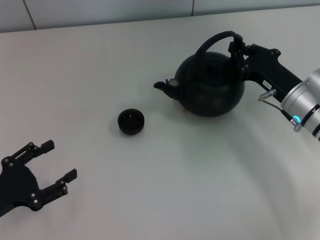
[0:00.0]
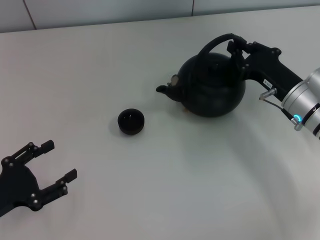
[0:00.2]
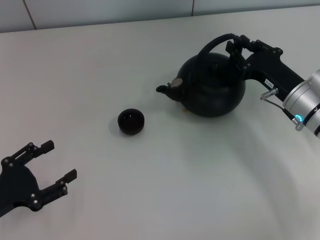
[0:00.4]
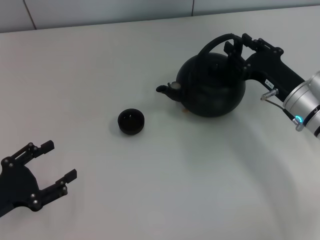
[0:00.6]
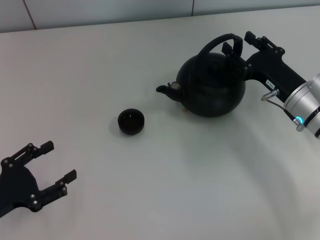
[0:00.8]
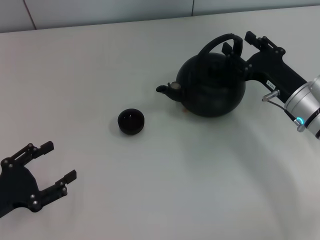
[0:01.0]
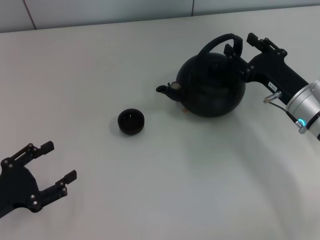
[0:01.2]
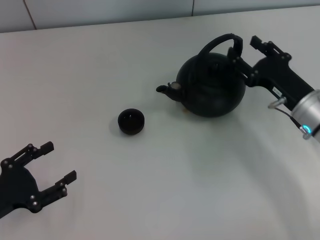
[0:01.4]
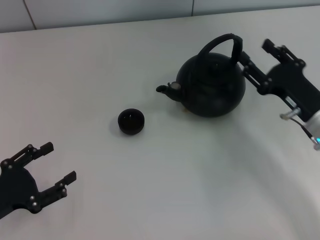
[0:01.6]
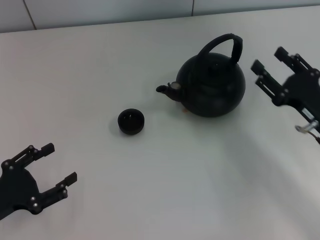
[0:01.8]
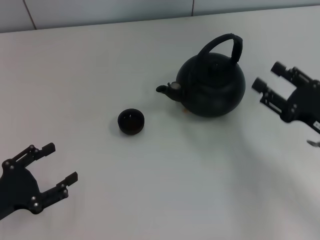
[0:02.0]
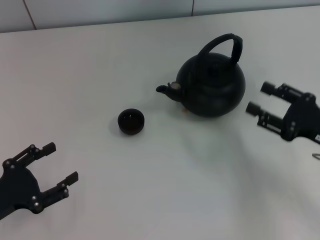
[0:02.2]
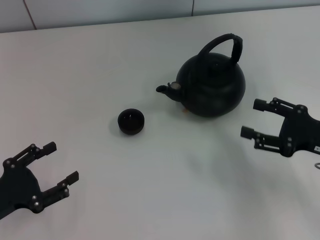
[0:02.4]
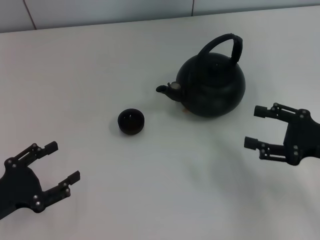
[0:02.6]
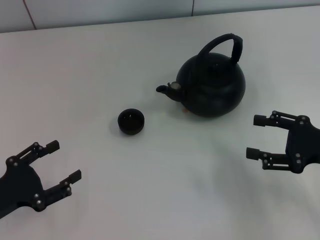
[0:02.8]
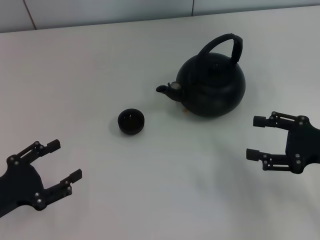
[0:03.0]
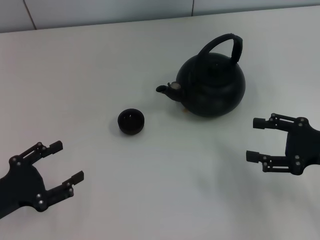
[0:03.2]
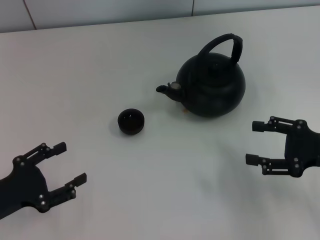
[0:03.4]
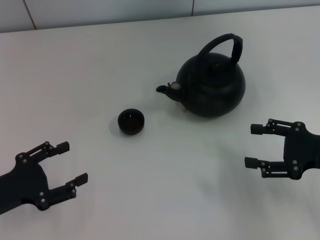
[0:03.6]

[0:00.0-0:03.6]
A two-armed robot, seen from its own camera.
Task of the whole recording: Grasp the handle of the teapot with one hand and pour tea into the teacup.
0:00.0 to 0:01.8: The right gripper is displaced backward by roughly 5 cm, and opens.
0:01.8 to 0:03.6: The right gripper moves approximately 5 cm.

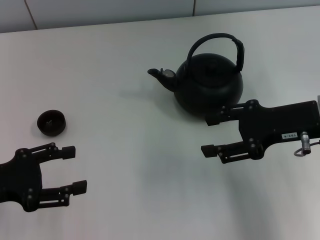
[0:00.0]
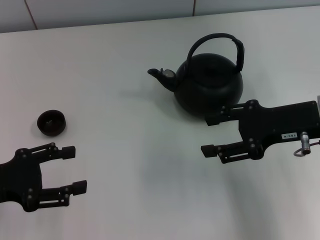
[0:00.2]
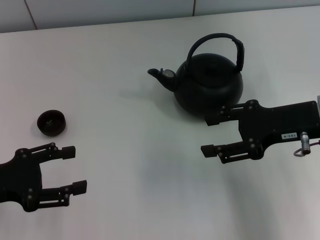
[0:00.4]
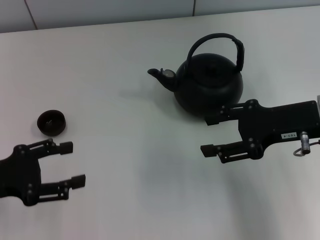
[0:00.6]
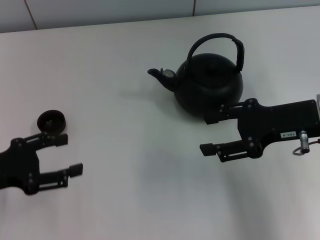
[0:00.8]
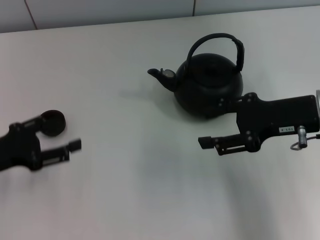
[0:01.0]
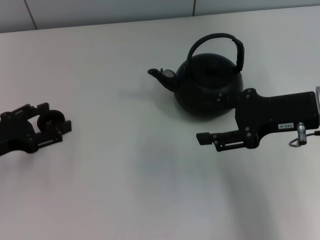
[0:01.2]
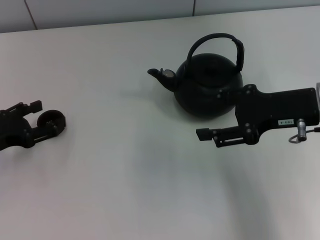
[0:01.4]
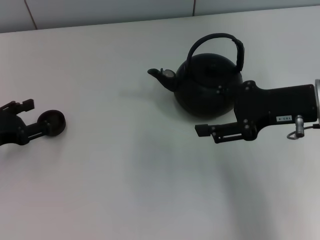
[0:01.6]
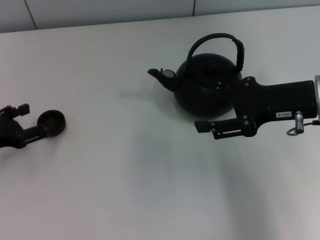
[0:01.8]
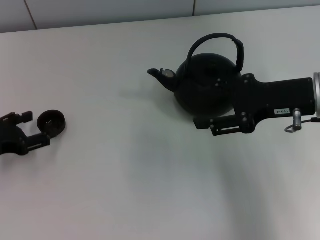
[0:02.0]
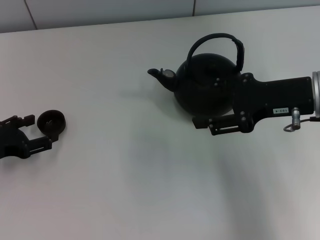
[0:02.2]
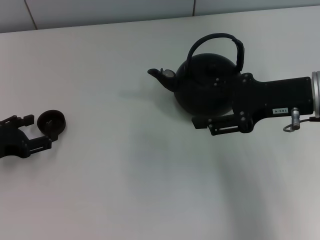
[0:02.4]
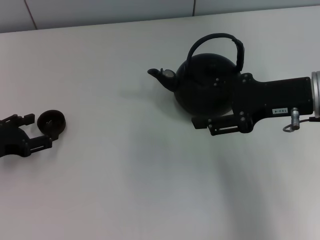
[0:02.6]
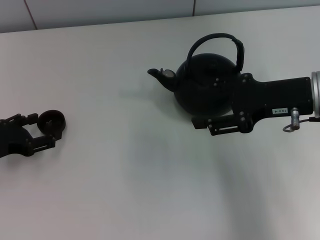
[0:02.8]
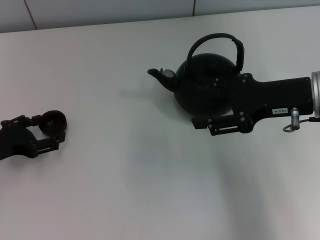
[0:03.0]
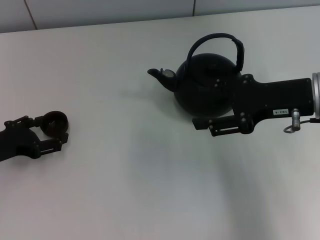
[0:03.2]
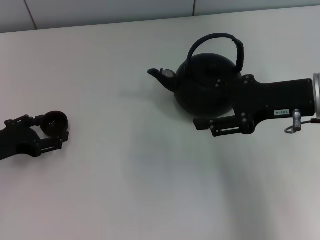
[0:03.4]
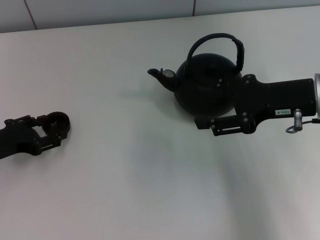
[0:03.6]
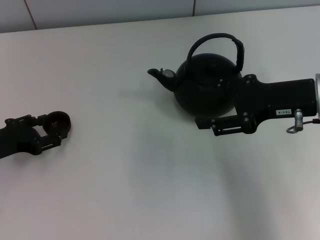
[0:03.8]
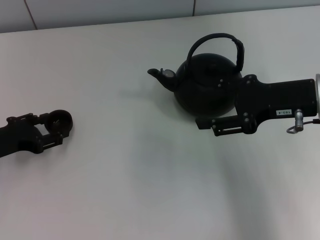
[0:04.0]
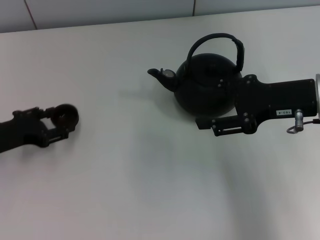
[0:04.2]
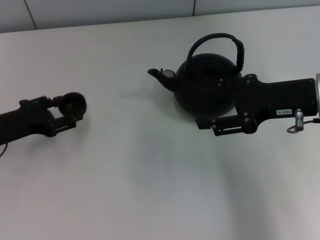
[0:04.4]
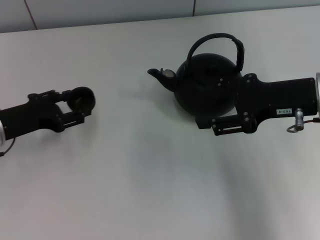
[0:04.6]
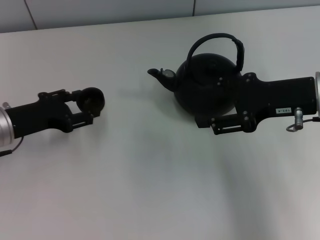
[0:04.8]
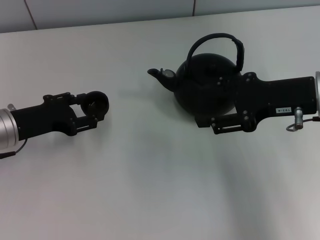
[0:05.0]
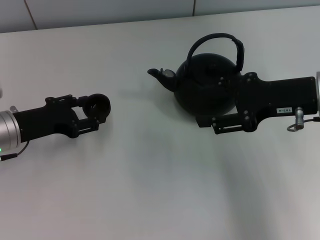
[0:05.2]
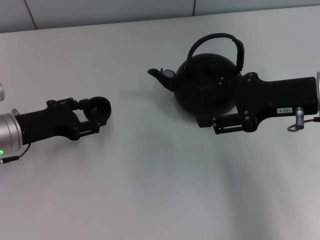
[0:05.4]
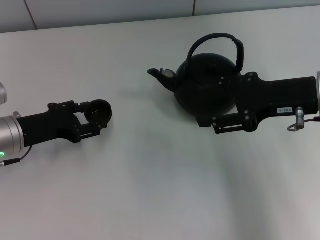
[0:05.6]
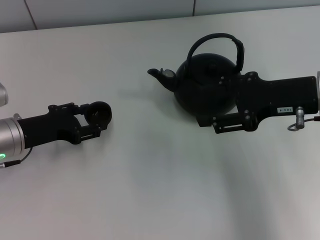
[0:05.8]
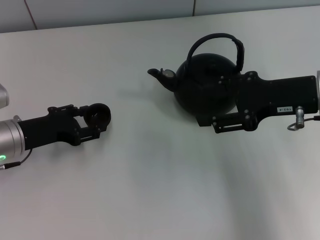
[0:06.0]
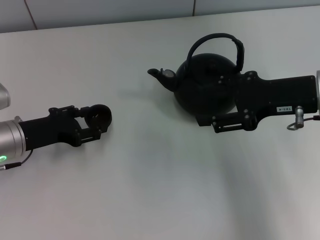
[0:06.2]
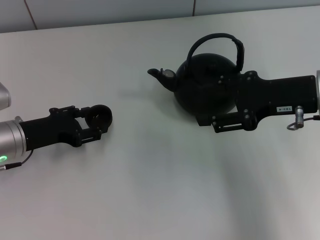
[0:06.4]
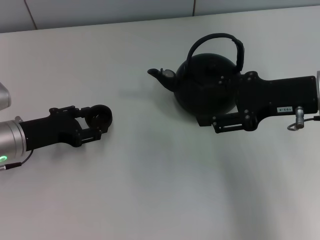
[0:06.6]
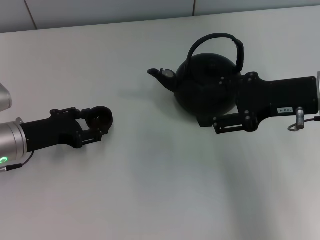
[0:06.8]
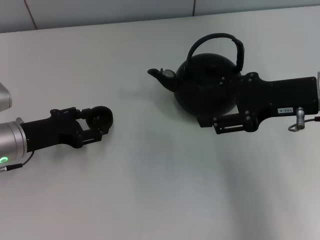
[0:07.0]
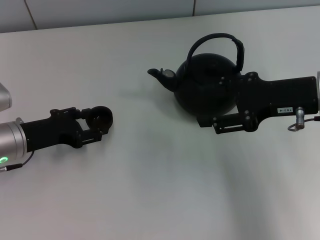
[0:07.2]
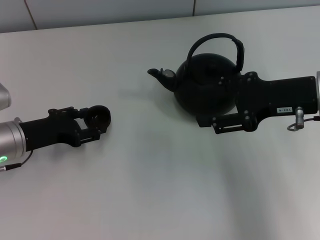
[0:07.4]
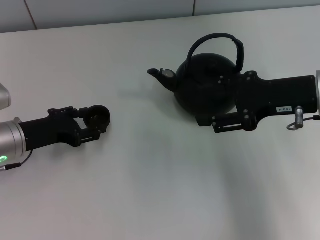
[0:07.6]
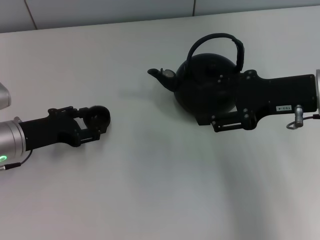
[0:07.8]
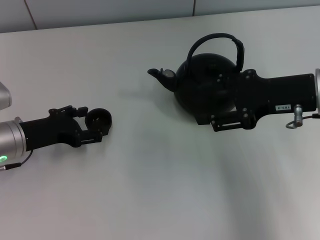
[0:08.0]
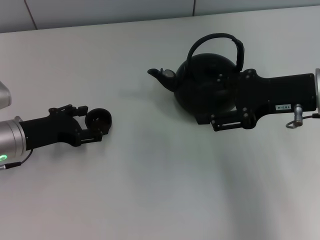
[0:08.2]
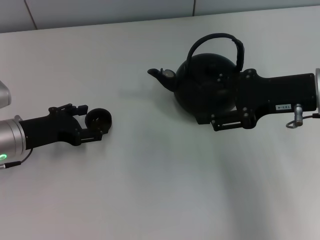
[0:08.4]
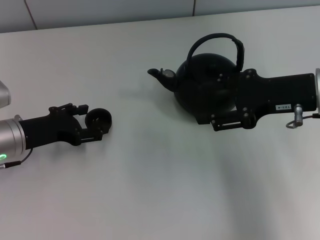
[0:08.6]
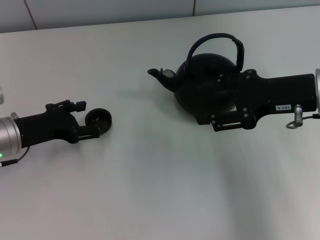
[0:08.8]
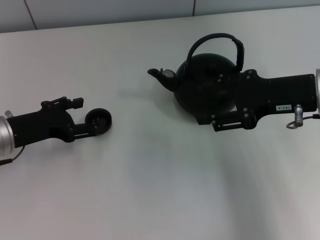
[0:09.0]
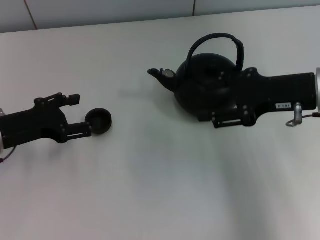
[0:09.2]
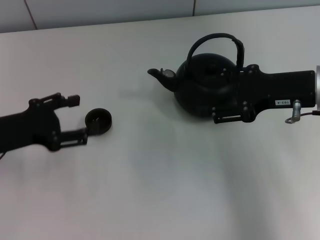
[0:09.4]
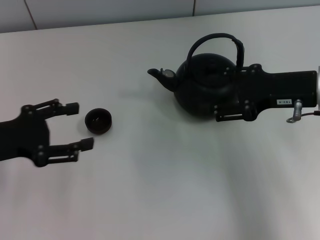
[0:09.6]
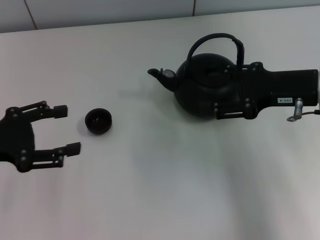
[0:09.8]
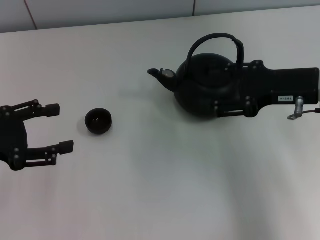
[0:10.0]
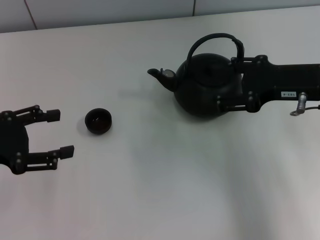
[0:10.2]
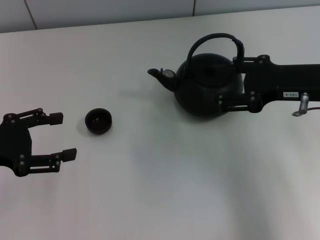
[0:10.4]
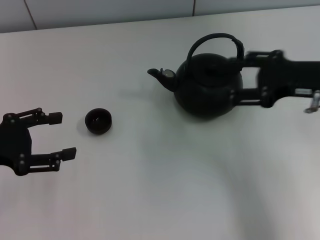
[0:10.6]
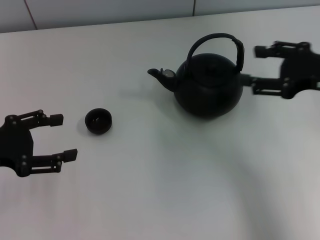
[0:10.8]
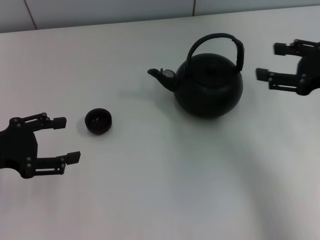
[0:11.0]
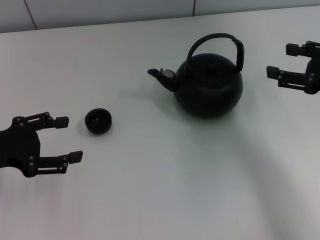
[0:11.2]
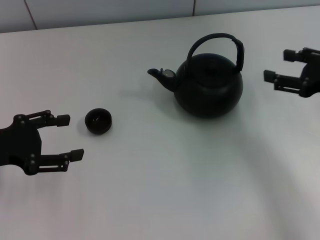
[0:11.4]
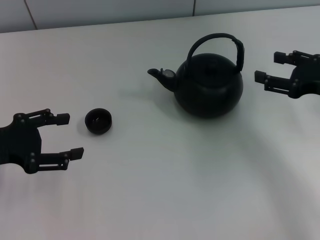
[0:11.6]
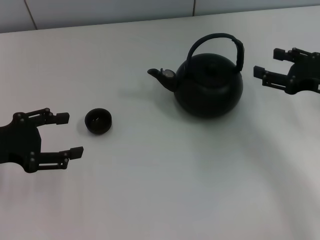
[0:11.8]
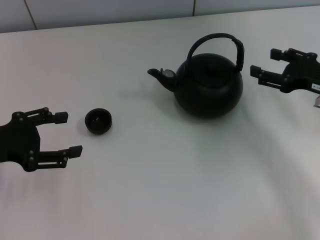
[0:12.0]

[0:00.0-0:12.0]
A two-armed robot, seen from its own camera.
Task of the whole recording: Grasp the handle of the teapot with one hand and pour tea into the teacup.
Step, 0:00.0 to 0:05.2: Pick up the teacup with the left gripper.
Step, 0:05.4 to 0:09.4: Place the teacup in the center of view with the left gripper.
0:00.0 to 0:01.6: The left gripper shifts roughly 5 cm forward.
0:01.6 to 0:03.0: The grippers move only a little.
0:03.0 to 0:04.4: The left gripper closes.
0:04.4 to 0:06.0: The grippers stay close to where they were, moving slightly.
0:06.0 to 0:07.6: Both grippers stay put.
0:07.6 to 0:09.0: The left gripper opens its fingers.
0:09.0 to 0:10.4: The left gripper travels upward and to the left by approximately 5 cm.
0:10.4 to 0:12.0: The right gripper goes about 10 cm downward and to the right.

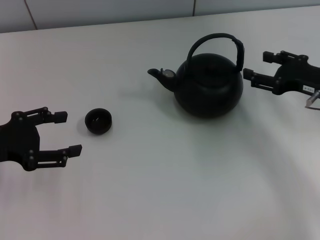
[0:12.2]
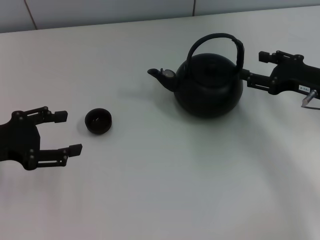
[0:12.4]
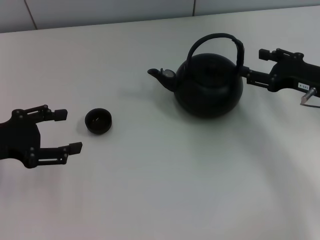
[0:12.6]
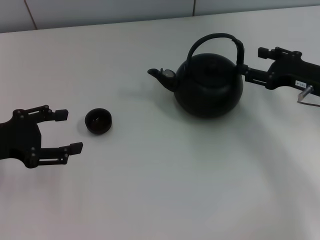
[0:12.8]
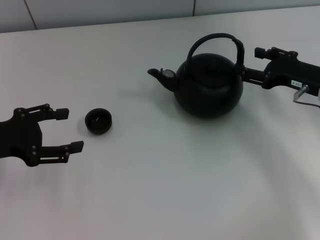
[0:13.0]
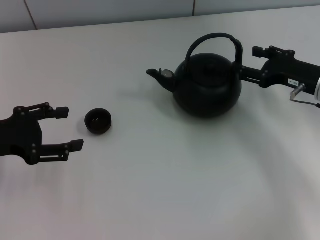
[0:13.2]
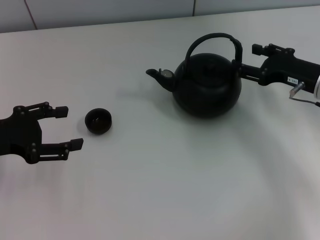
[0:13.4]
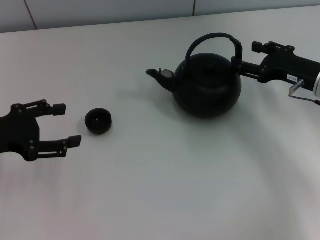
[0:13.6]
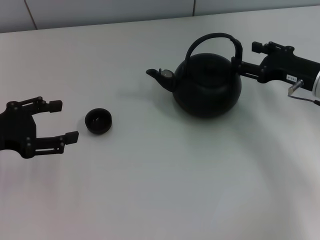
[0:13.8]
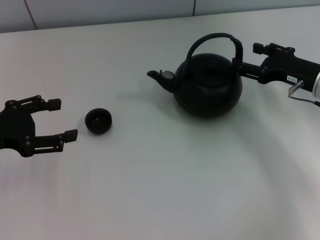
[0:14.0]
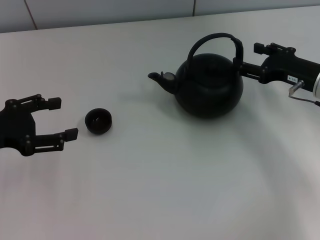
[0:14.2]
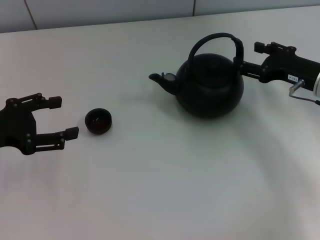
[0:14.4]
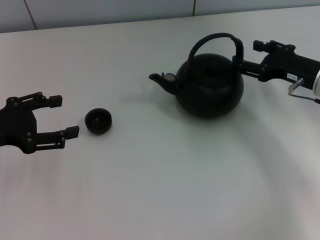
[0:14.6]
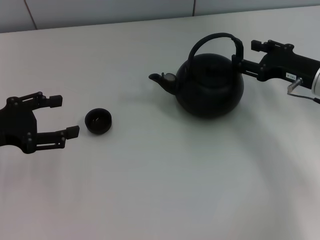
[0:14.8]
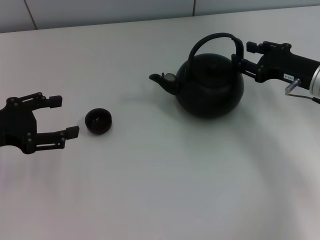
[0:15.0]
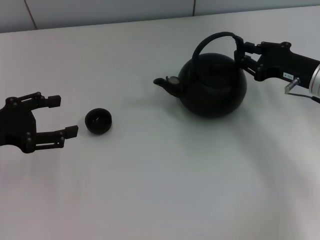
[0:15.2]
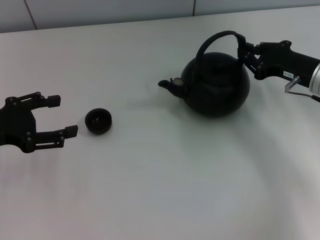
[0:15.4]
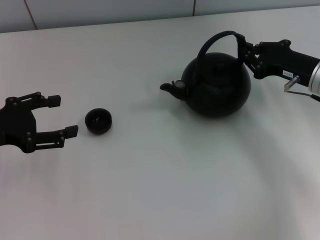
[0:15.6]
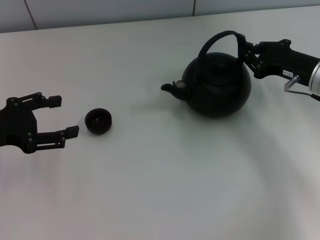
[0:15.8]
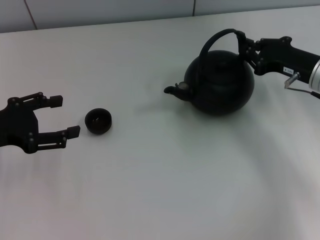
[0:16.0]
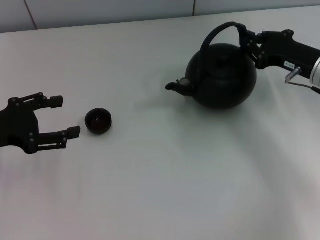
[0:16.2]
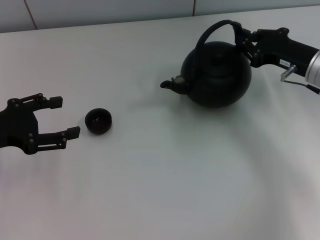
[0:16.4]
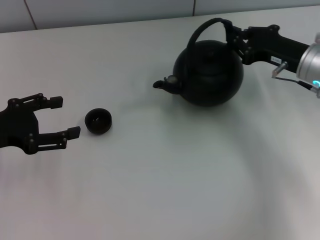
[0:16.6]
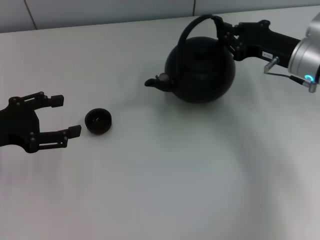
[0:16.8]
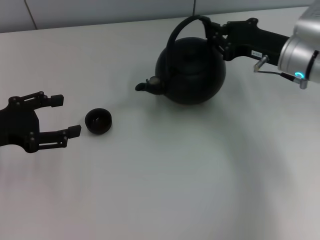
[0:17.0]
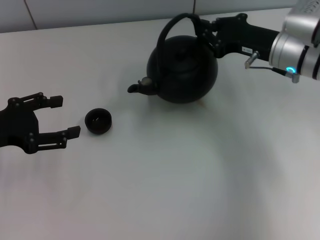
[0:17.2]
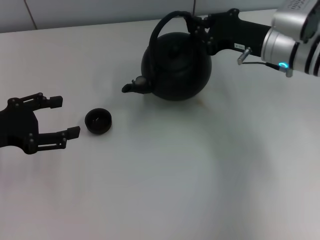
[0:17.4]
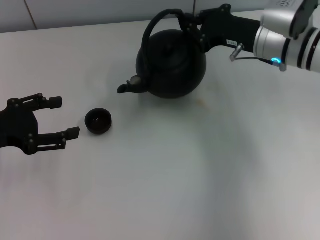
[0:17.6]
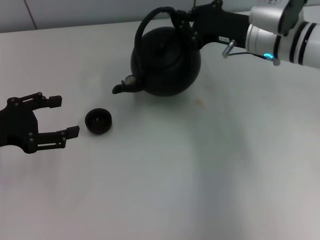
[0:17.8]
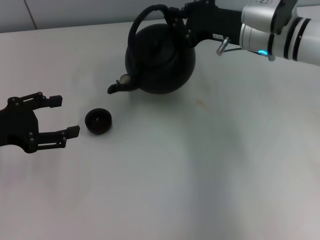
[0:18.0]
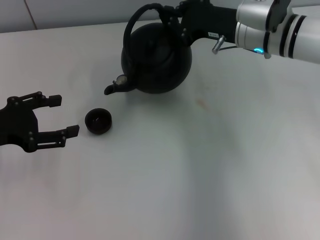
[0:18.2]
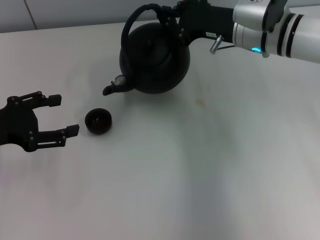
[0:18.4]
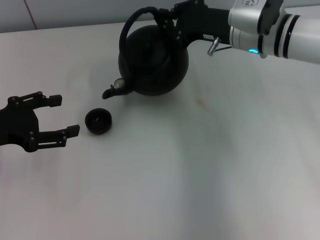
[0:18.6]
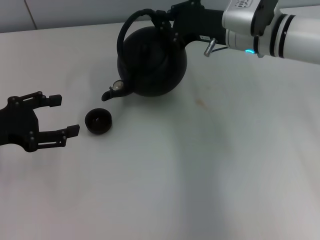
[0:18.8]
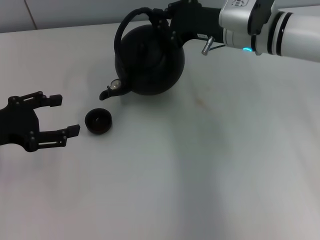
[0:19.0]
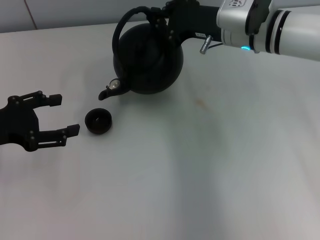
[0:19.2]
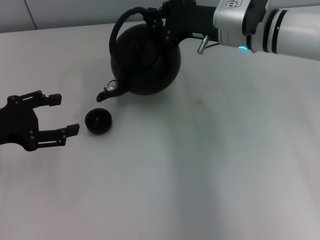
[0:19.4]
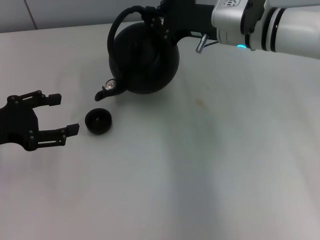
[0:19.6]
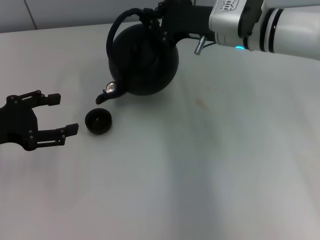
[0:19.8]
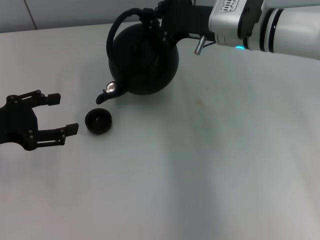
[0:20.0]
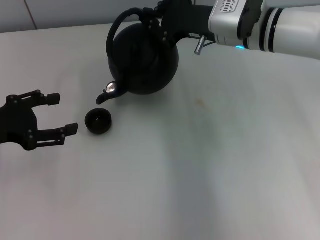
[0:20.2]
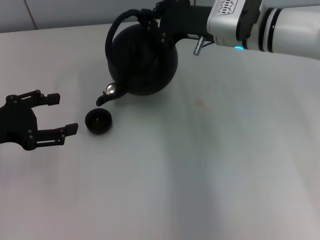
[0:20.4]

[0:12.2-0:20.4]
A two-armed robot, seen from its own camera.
Task of the whole recording: Grasp the handle of the teapot with one hand and pour tea into the teacup.
Step, 0:12.2 to 0:17.2: Pick up the teapot with the right gripper.
0:12.2 to 0:13.8: The grippers stay close to where they were, moving slightly.
0:13.8 to 0:15.4: The right gripper closes up.
0:15.4 to 0:17.2: The right gripper goes some 5 cm to the left.
0:17.2 to 0:18.8: The right gripper travels to the left by some 5 cm.
0:18.8 to 0:20.4: The grippers make only small movements.
